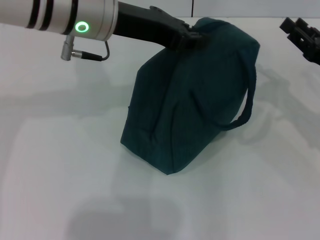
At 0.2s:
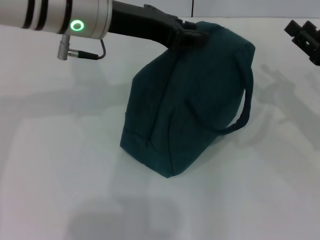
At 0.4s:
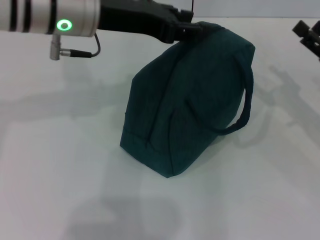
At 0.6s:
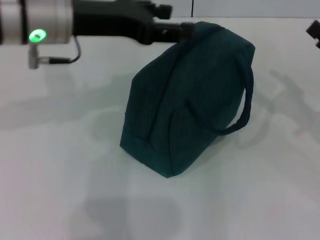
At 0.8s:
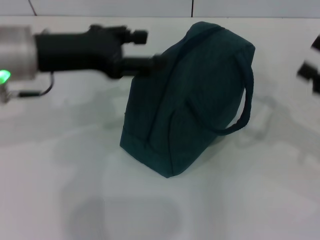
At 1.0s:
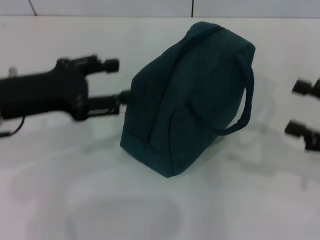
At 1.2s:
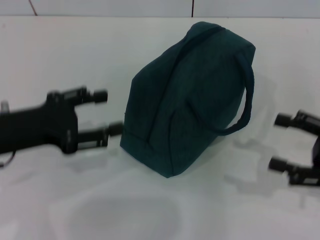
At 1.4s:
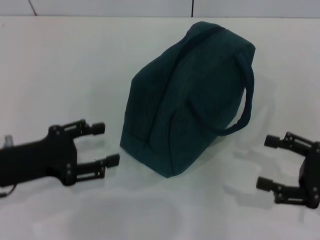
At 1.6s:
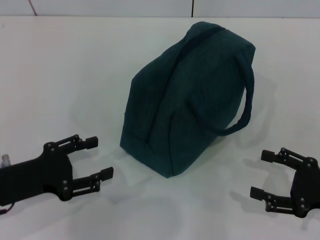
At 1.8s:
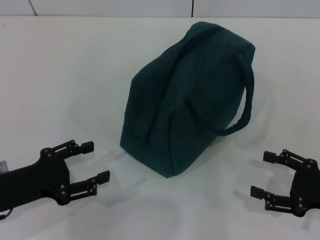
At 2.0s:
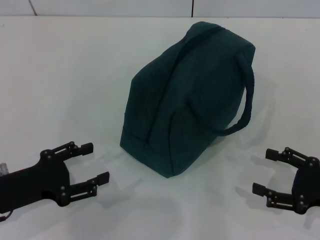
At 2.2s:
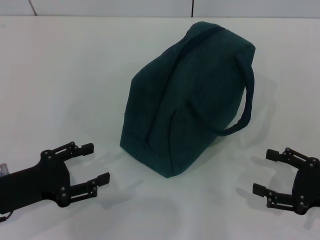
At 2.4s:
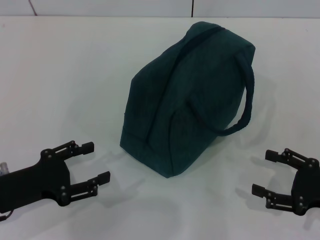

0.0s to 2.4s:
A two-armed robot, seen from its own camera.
Step, 0.0s to 0.4s: Hold the lunch bag with your left hand.
0.0s to 1.2s: The left gripper heads to the left, backward and downward, covering roughly 20 cm, and opens its fingers, while the right gripper heads backward, covering roughly 10 cm, and opens.
1.2s to 2.4s: Both grippers move downward, about 5 cm.

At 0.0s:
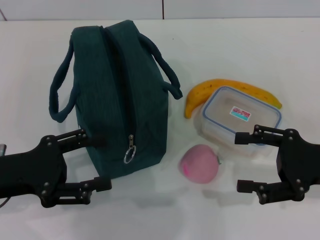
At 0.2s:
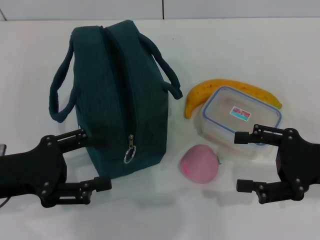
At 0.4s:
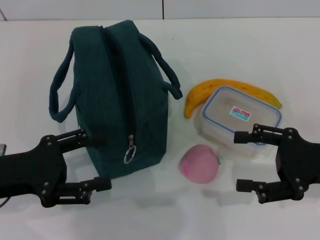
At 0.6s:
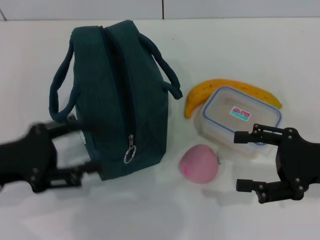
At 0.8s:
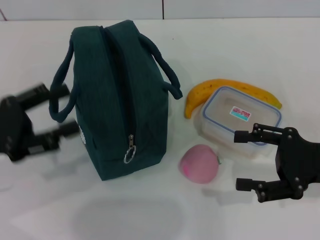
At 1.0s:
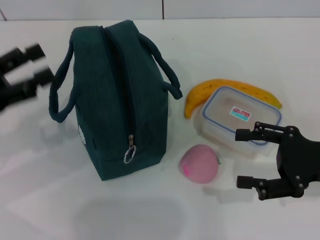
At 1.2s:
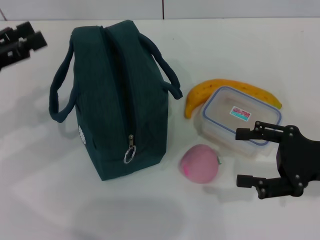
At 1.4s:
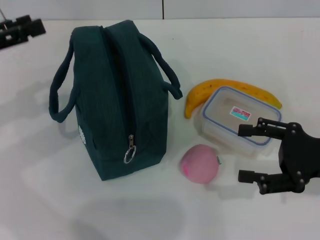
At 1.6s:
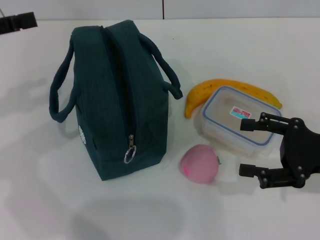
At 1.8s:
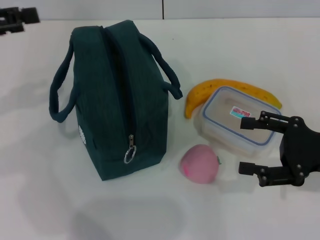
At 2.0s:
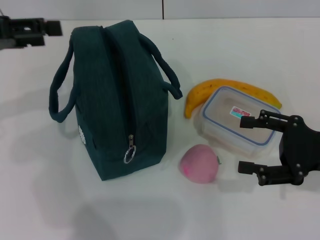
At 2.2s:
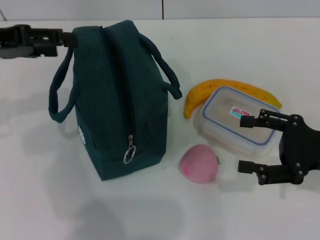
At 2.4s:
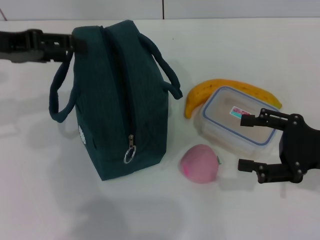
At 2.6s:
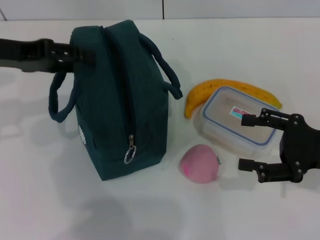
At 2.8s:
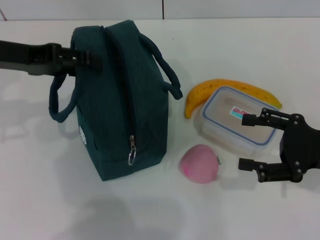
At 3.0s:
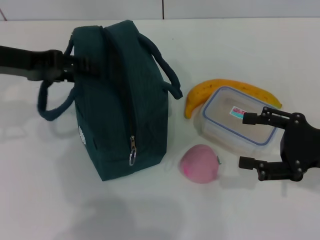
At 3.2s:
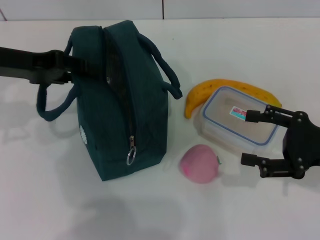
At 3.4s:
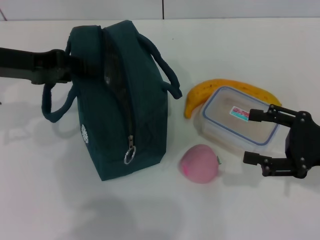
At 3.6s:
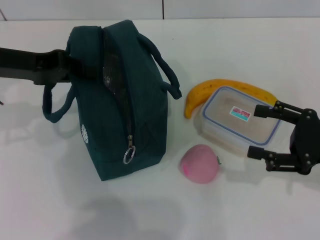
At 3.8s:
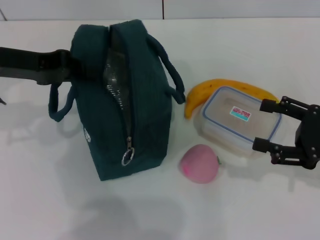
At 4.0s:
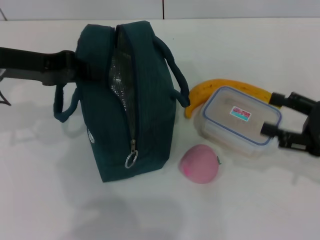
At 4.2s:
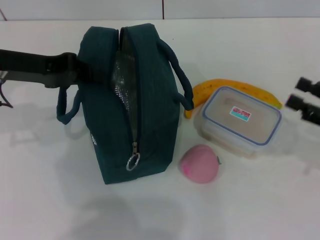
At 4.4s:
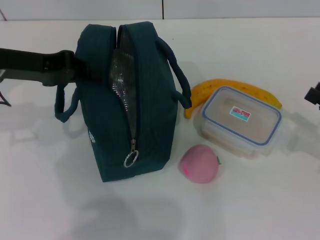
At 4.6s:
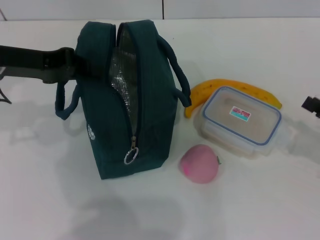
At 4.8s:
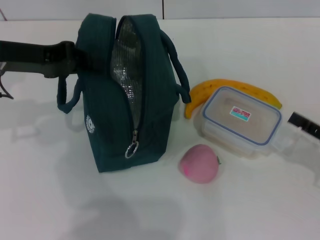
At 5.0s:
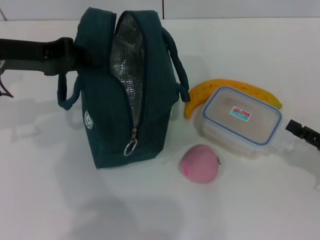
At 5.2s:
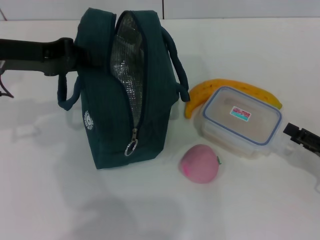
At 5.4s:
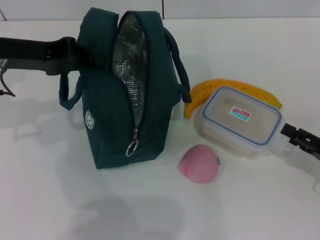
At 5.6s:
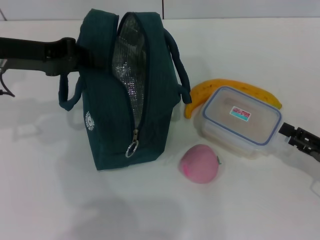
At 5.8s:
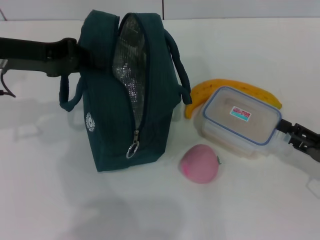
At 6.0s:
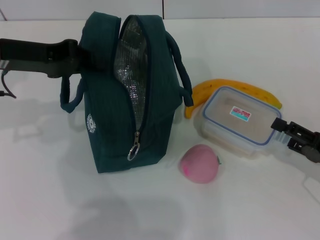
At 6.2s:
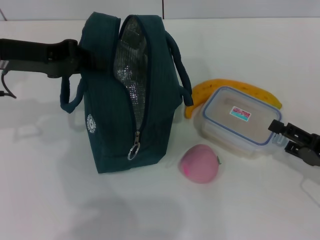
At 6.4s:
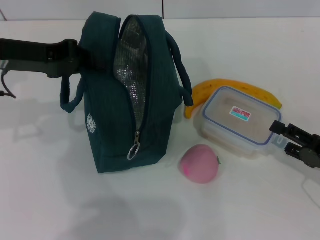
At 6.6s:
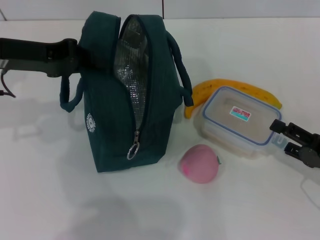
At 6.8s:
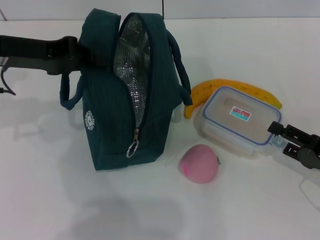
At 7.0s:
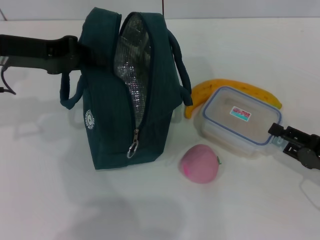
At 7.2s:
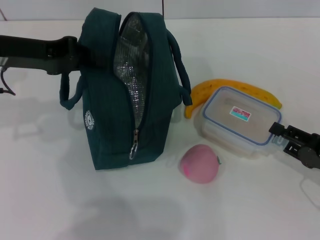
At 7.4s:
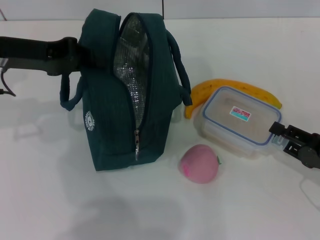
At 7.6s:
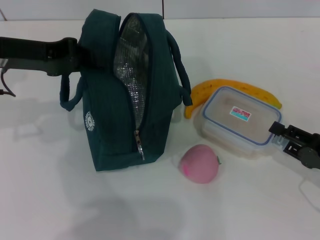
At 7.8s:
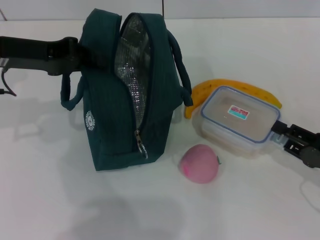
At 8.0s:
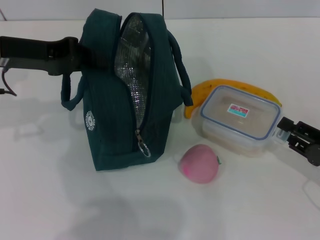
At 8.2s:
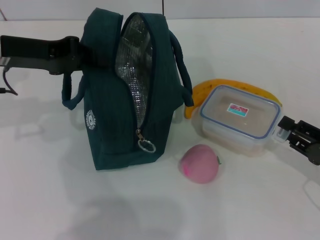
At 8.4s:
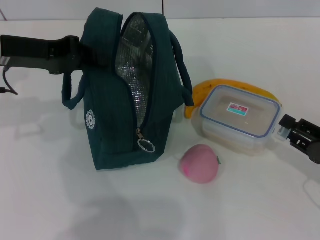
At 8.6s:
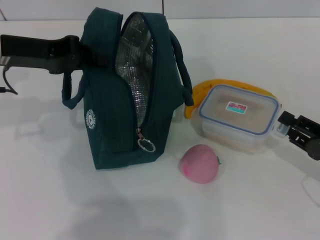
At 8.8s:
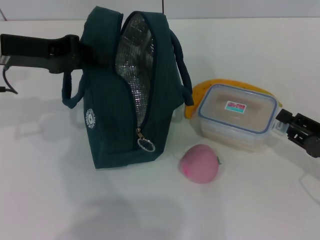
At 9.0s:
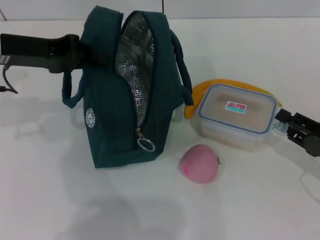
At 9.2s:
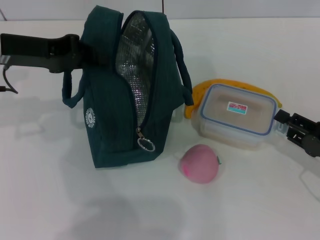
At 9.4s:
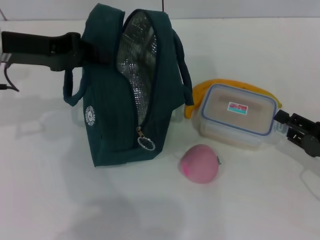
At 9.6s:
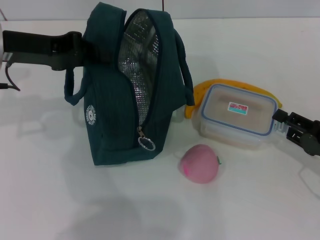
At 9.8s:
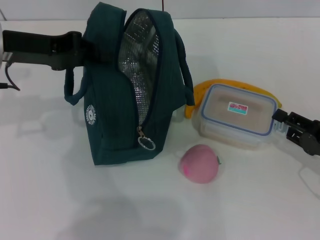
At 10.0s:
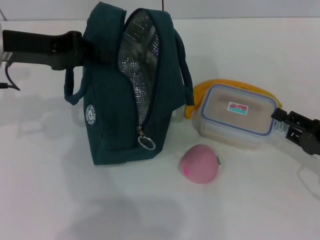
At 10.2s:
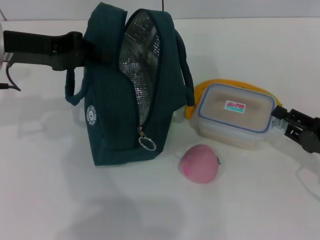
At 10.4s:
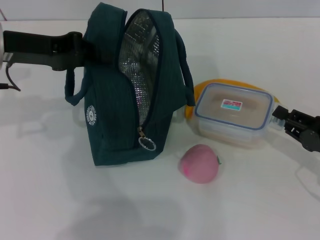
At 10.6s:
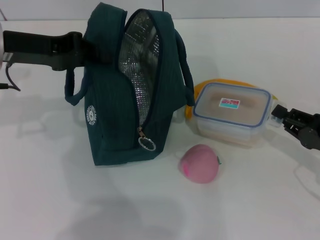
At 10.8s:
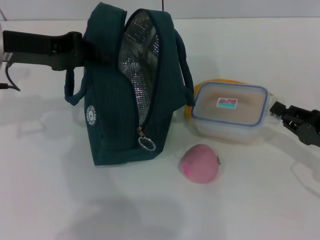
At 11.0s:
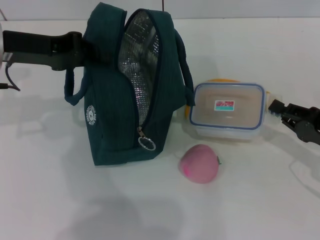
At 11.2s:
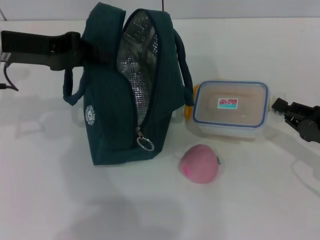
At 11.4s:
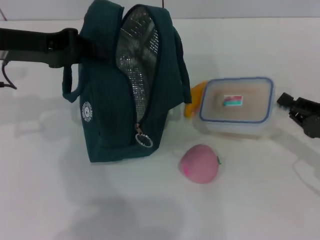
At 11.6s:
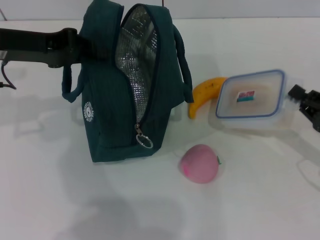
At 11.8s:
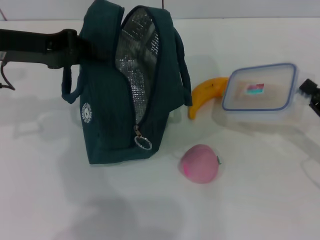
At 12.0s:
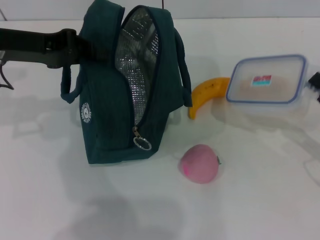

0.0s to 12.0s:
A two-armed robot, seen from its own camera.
Step, 0.0s to 4.4s: Hold the lunch bag with your left hand.
Step, 4.6s to 9.0s: Pick up the lunch box with your right hand.
0.0s to 1.6s: The left gripper shifts some 15 cm upward, forward and to the left.
1.6s to 3.0s: The left gripper is displaced to the right by approximately 5 cm.
3.0s to 4.4s: The left gripper closes up; the right gripper moves to the right, about 5 cm.
4.4s to 6.0s: The right gripper ends up approximately 5 cm from where it was.
6.0s to 7.6s: The right gripper closes up.
7.6s to 9.0s: Neither gripper changes place.
9.0s to 10.4s: The two grippers keep their place.
10.4s to 12.0s: The right gripper closes up.

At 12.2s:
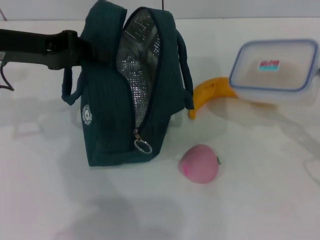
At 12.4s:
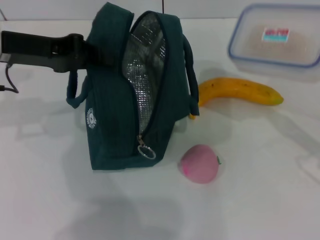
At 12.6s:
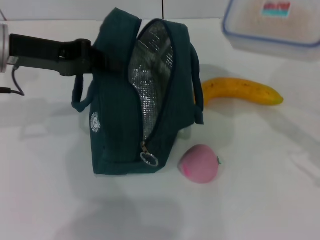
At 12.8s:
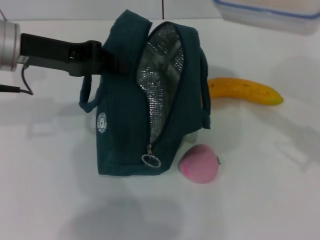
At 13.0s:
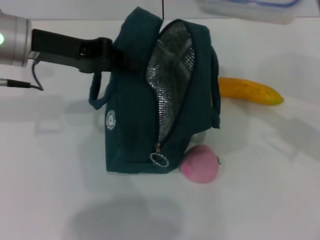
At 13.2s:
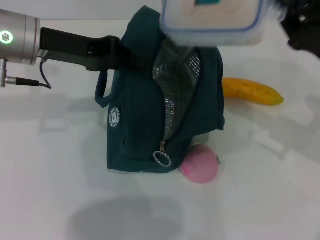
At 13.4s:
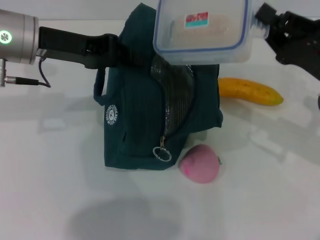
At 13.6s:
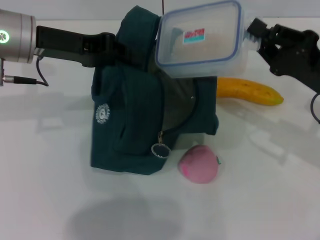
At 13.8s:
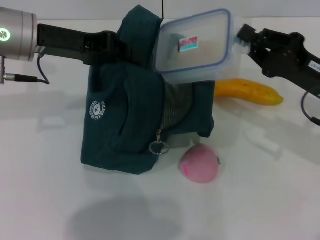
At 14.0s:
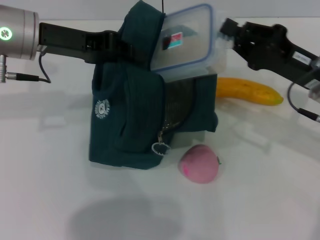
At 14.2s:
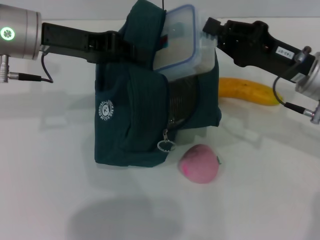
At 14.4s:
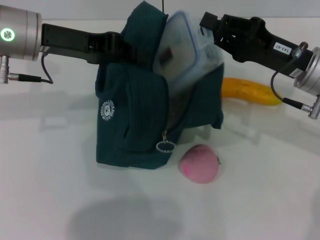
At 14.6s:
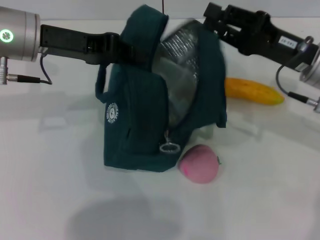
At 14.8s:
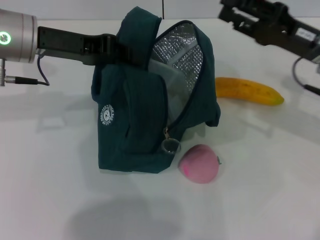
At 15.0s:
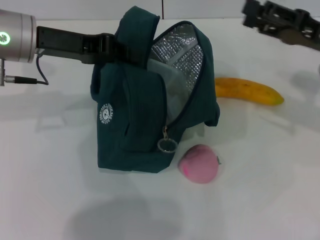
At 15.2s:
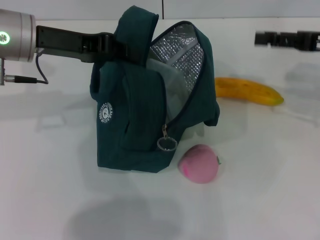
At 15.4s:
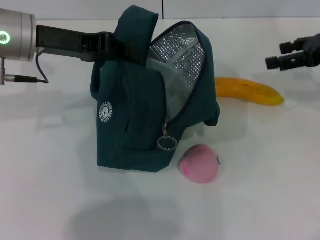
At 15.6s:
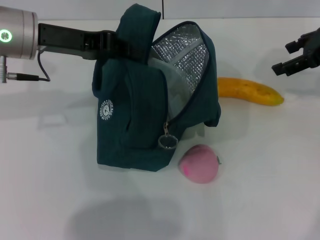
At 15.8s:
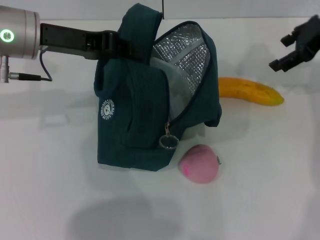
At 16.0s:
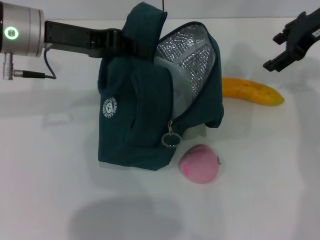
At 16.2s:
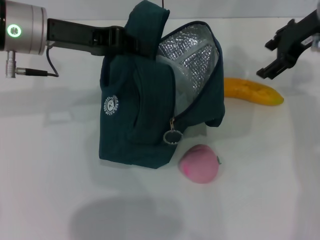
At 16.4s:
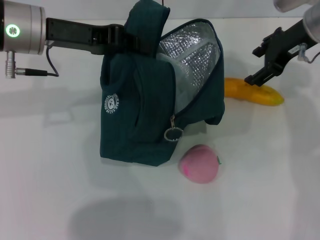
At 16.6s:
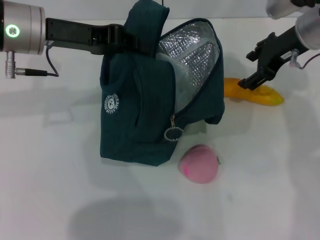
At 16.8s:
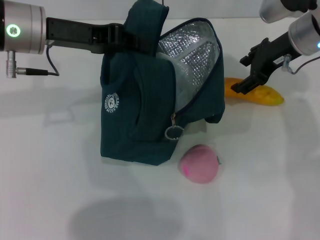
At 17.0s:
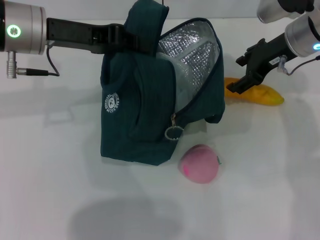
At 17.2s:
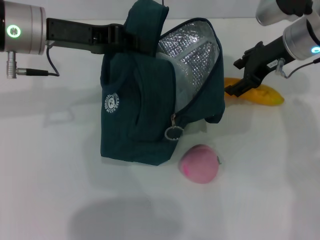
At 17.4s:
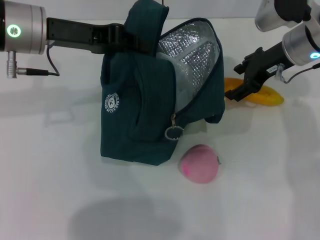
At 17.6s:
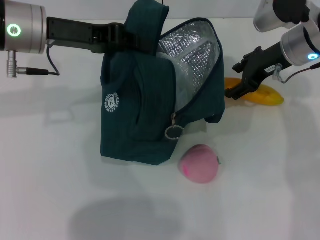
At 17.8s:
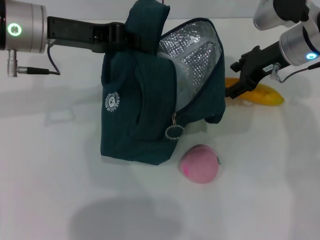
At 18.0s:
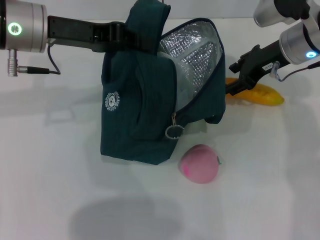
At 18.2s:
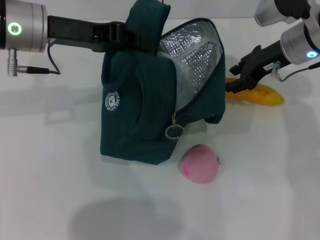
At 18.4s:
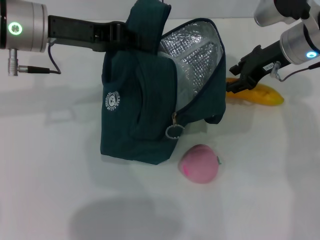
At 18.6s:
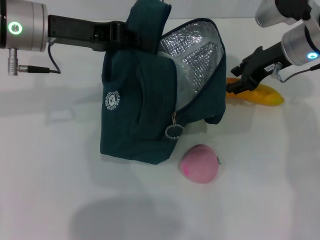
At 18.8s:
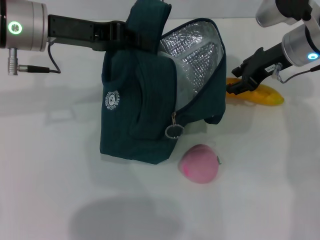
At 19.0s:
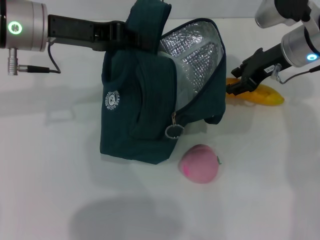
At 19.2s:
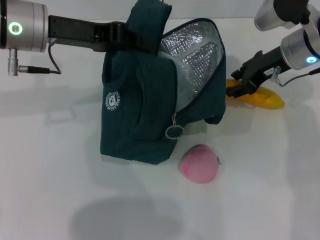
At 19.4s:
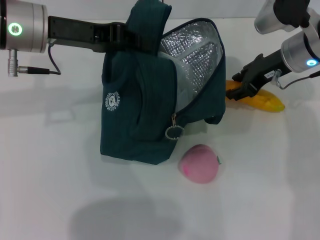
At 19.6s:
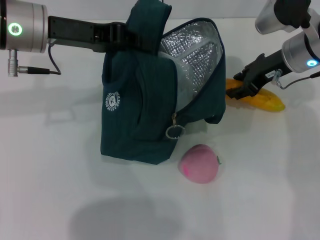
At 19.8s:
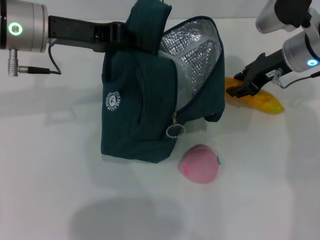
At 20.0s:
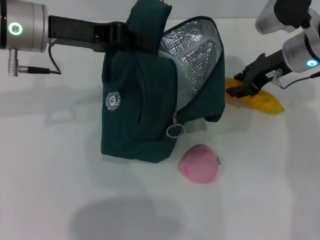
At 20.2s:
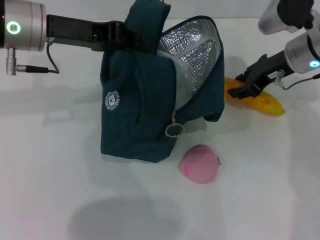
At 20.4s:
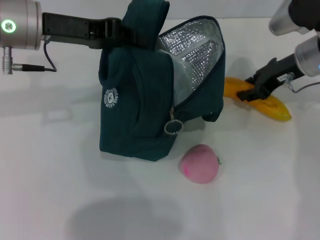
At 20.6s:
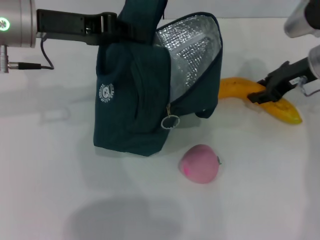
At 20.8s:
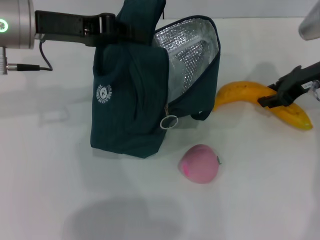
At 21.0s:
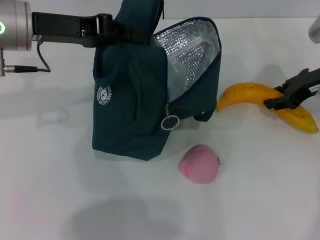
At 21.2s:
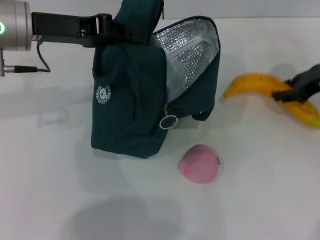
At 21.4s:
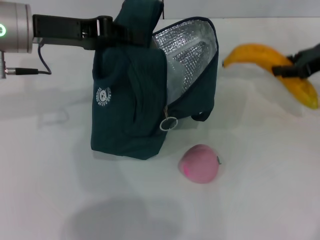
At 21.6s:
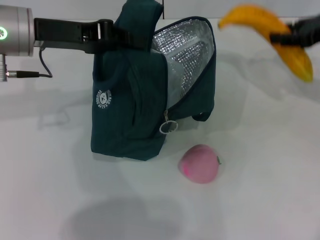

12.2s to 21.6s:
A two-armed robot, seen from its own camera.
Step, 12.2s to 14.6s: Place the lunch box into the lunch bag with your right hand.
Step, 14.8s to 19.6s: Take the banana with your right hand.
12.2s to 13.8s: The right gripper is displaced to the left and forward by some 10 cm.
13.8s to 15.4s: The right gripper shifts some 15 cm upward, forward and to the right, and opens.
15.4s to 17.0s: The right gripper travels to the left by approximately 10 cm.
17.0s to 20.0s: The grippers make only small movements.
20.0s to 21.6s: The right gripper moves to the right and upward, roughly 10 cm.
